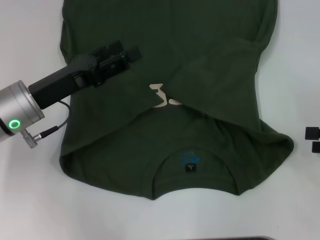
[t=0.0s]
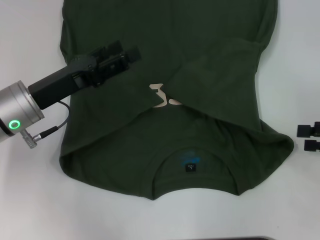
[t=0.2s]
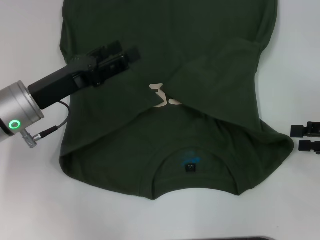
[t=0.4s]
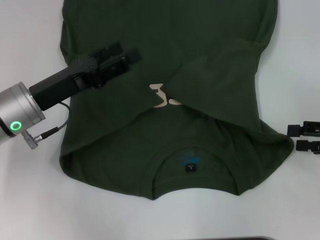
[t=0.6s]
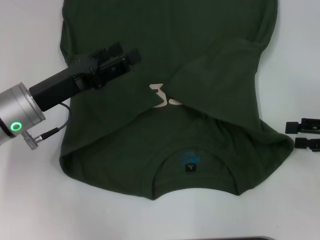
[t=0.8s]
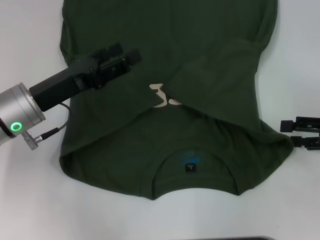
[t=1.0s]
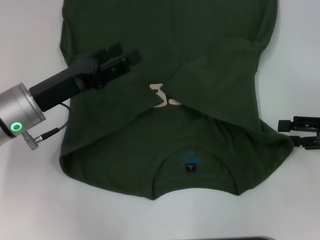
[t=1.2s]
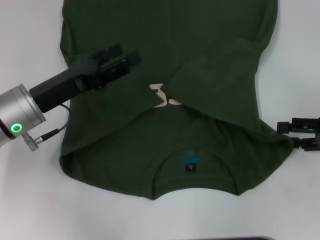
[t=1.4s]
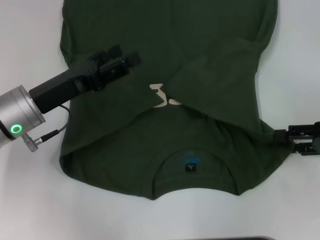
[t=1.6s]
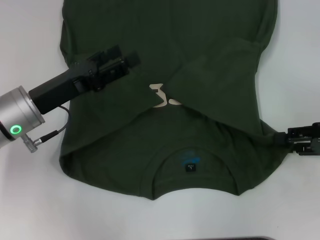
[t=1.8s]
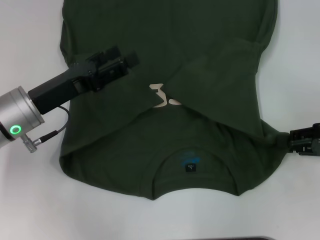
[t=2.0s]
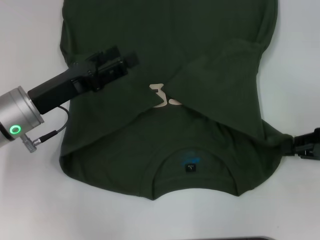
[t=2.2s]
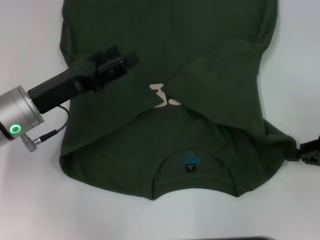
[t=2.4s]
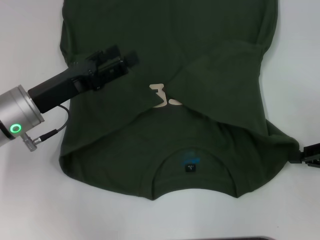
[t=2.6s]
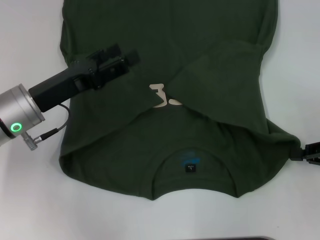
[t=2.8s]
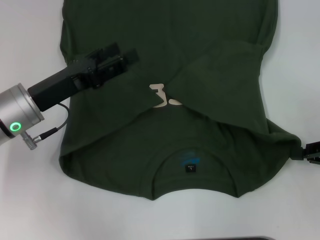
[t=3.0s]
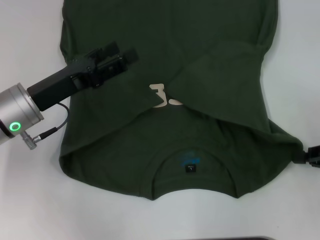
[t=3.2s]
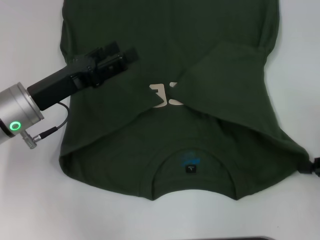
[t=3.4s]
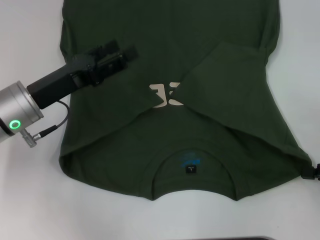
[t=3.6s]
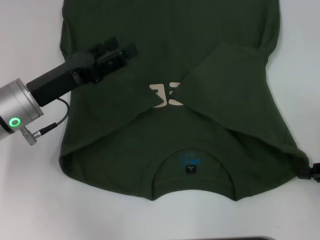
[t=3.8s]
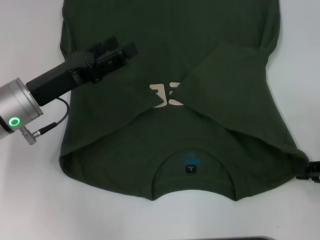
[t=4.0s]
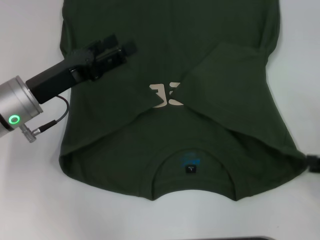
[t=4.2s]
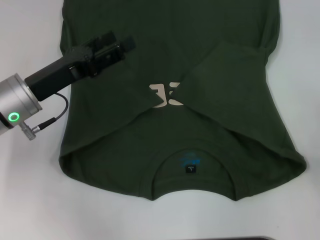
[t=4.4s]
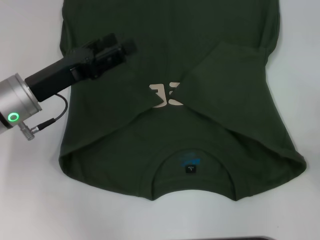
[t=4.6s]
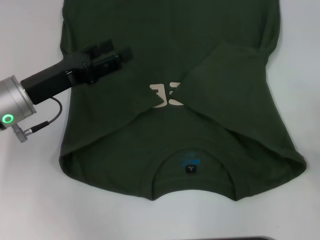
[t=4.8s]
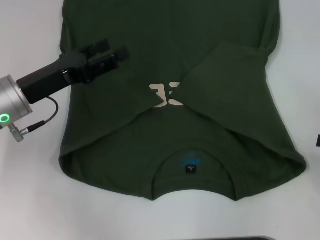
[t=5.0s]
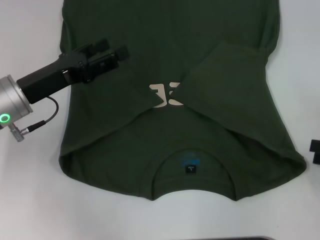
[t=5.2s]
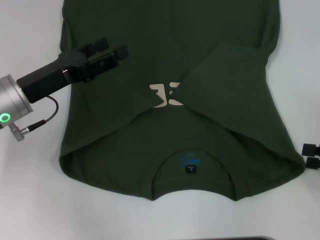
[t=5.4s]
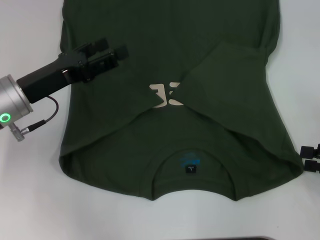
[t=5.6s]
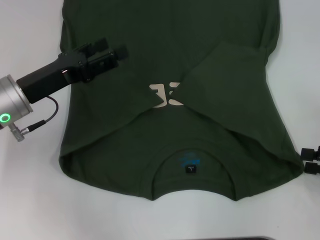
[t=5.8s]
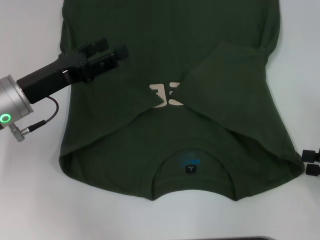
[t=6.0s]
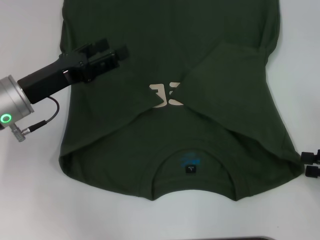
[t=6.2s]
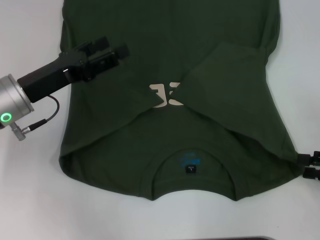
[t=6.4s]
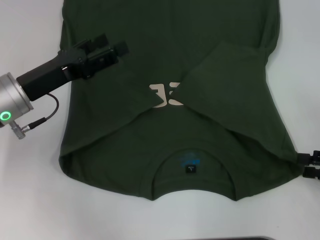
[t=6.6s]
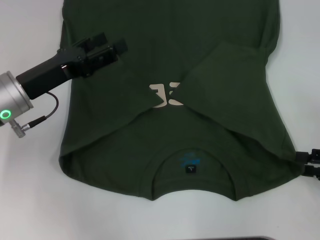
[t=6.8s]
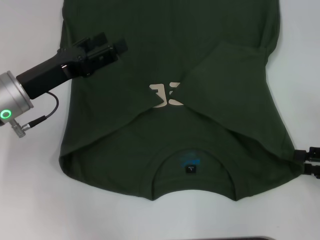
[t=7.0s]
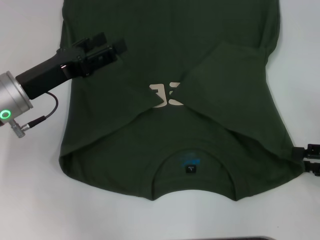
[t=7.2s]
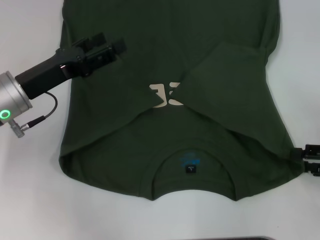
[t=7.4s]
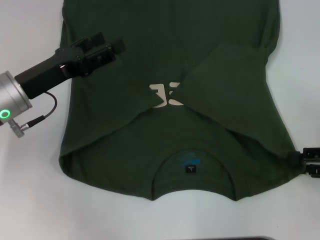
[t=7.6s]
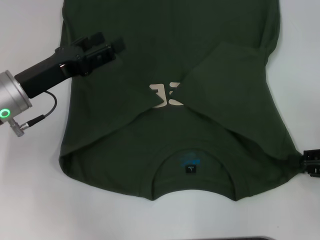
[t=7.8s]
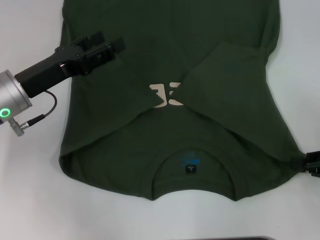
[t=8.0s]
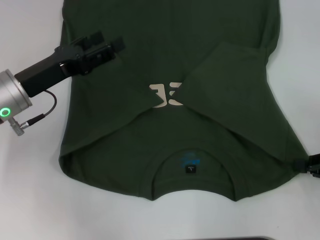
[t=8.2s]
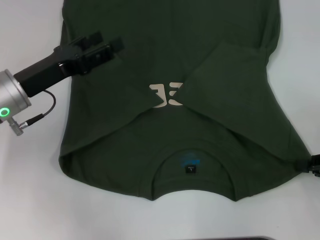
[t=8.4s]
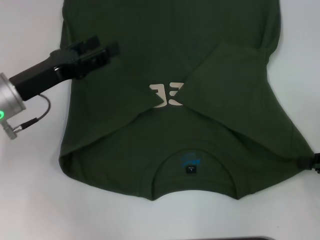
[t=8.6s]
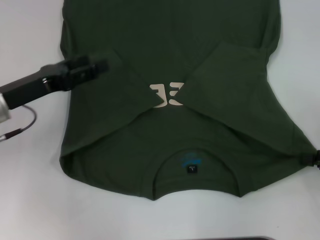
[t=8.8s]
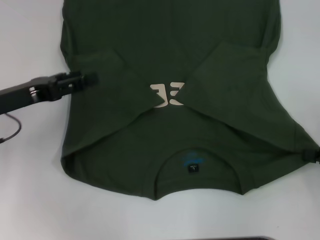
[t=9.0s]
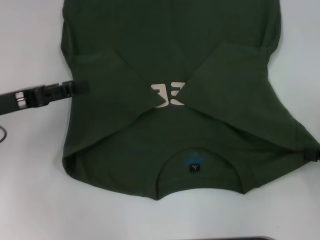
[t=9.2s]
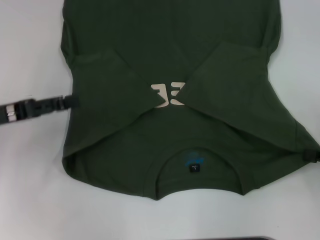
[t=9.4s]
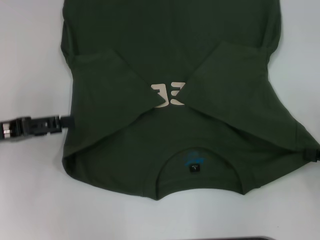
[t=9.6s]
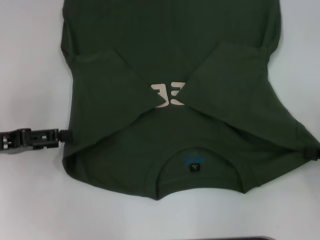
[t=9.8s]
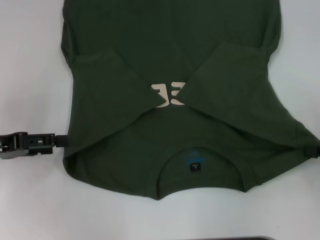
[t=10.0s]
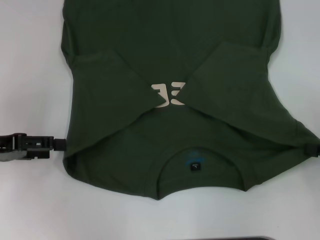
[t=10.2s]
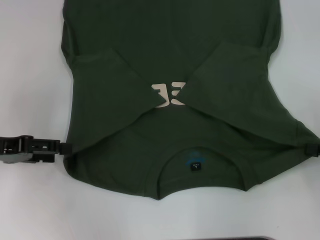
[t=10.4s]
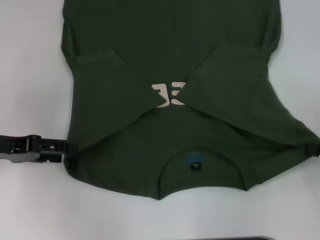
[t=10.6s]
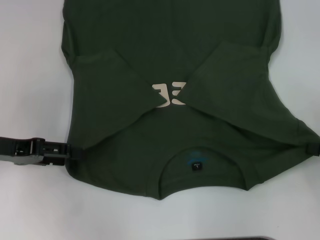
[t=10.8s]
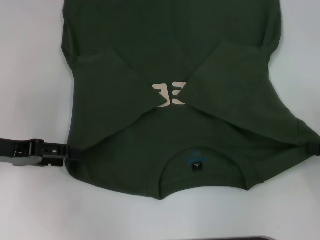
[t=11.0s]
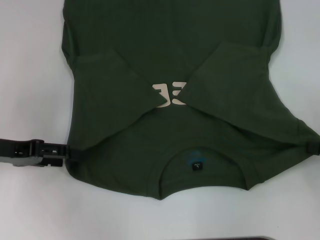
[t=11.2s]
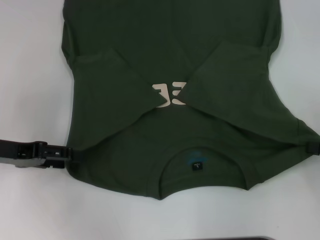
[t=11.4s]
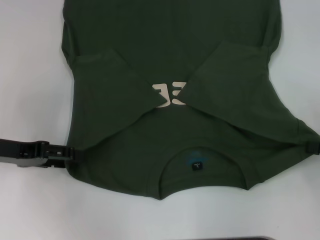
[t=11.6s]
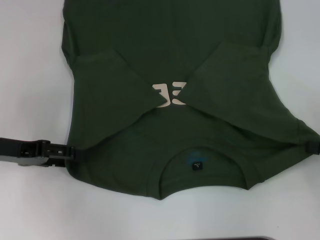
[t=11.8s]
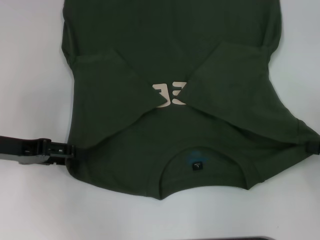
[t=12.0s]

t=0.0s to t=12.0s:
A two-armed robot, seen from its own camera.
Step, t=0.0s to t=9.6s: Grab the bottom right corner with your right hand.
t=0.0s to t=1.6s: The right gripper changes place by roughly 5 cm.
t=1.6s to t=3.0s: The right gripper closes.
t=3.0s to t=4.4s: The right gripper changes place by roughly 5 cm, and opens its fingers.
t=4.4s to t=7.6s: The grippers stay close to where they were, moving slightly.
t=7.6s to t=9.0s: The right gripper closes its fingers, while the left gripper moves roughly 5 cm.
t=10.4s to t=12.0s: The grippers stay close to where they were, moving slightly.

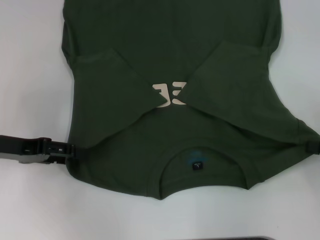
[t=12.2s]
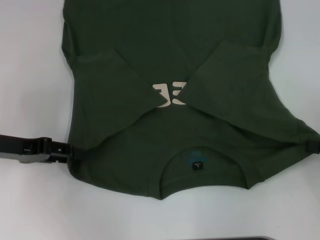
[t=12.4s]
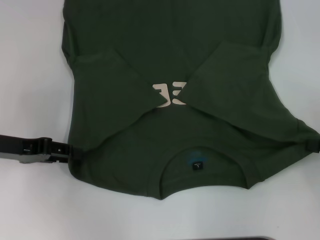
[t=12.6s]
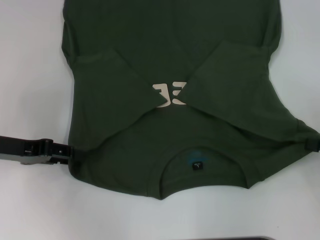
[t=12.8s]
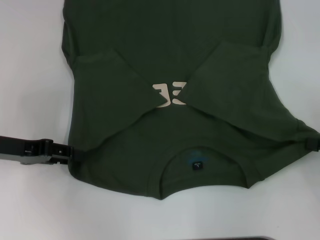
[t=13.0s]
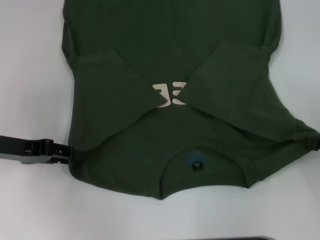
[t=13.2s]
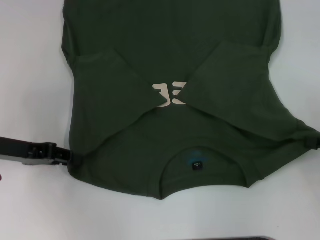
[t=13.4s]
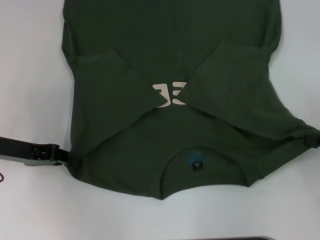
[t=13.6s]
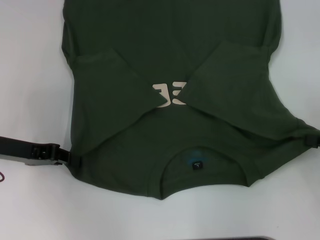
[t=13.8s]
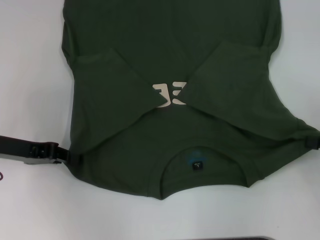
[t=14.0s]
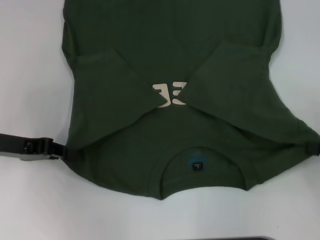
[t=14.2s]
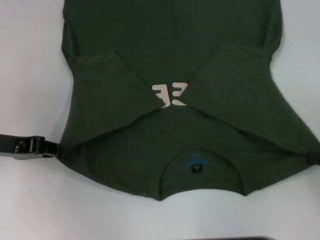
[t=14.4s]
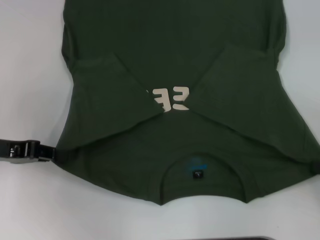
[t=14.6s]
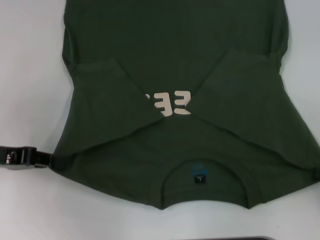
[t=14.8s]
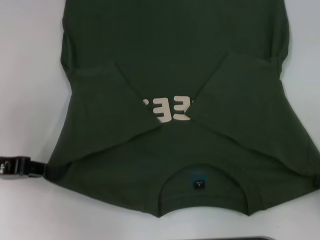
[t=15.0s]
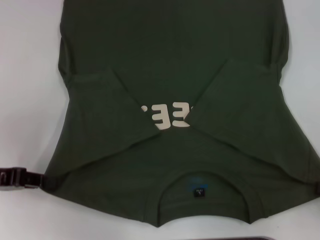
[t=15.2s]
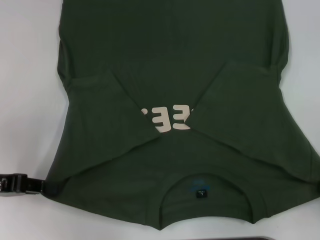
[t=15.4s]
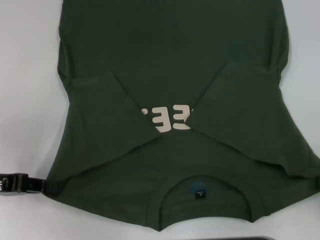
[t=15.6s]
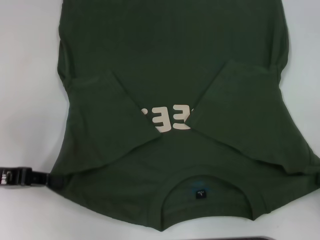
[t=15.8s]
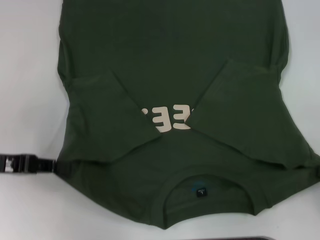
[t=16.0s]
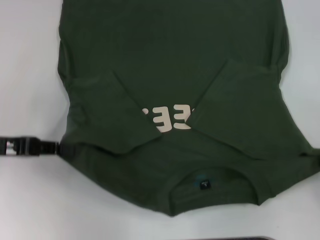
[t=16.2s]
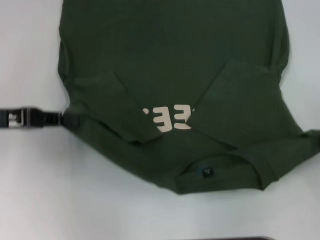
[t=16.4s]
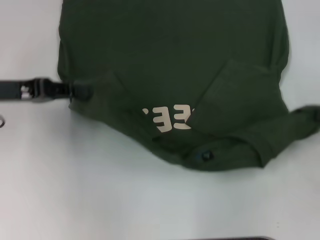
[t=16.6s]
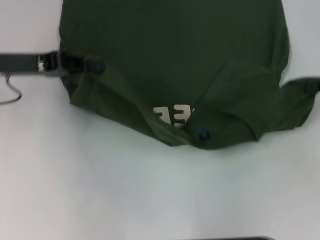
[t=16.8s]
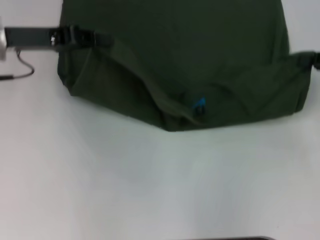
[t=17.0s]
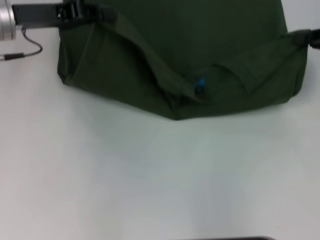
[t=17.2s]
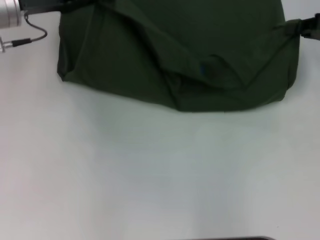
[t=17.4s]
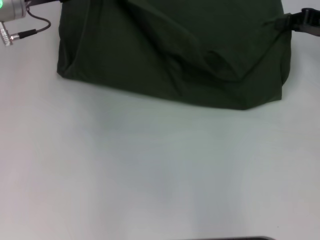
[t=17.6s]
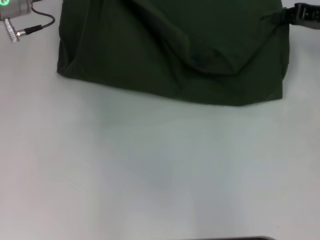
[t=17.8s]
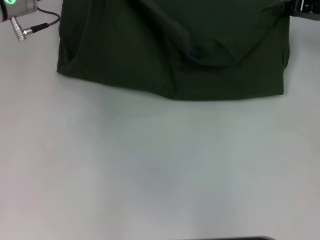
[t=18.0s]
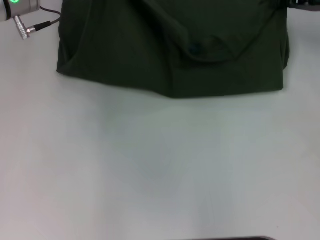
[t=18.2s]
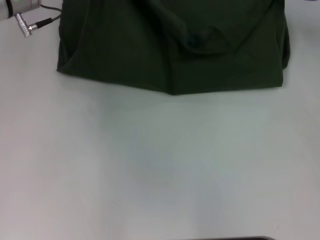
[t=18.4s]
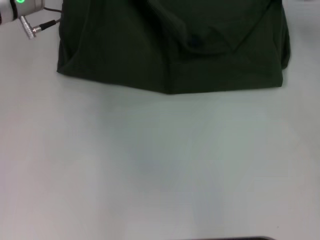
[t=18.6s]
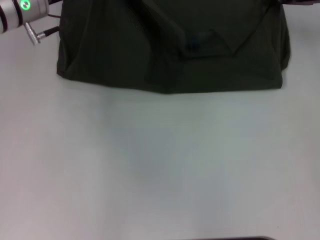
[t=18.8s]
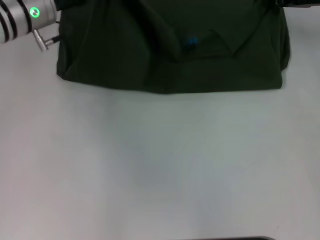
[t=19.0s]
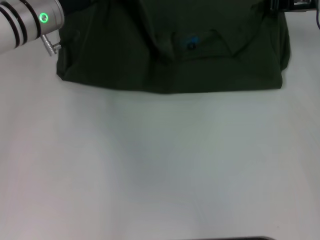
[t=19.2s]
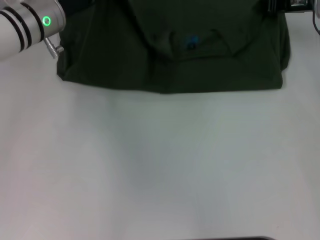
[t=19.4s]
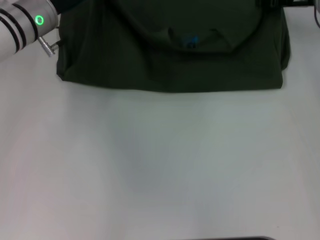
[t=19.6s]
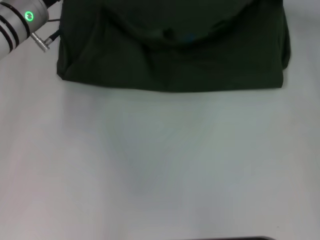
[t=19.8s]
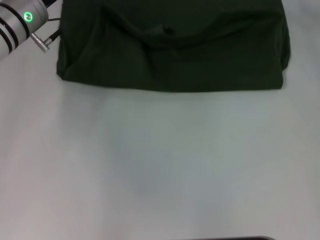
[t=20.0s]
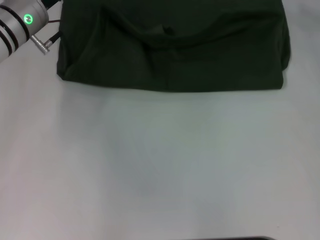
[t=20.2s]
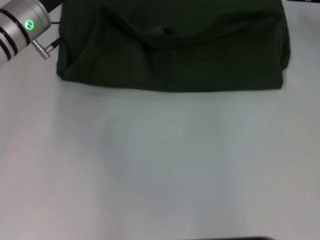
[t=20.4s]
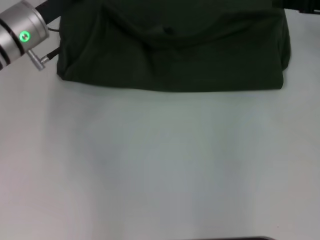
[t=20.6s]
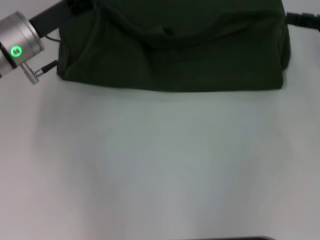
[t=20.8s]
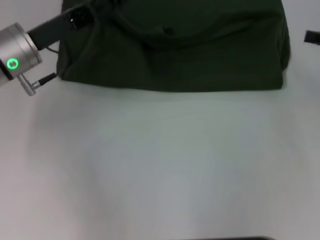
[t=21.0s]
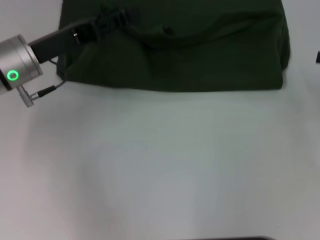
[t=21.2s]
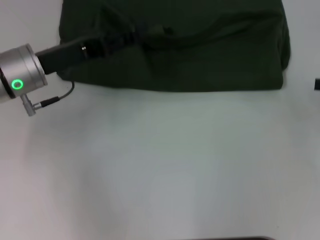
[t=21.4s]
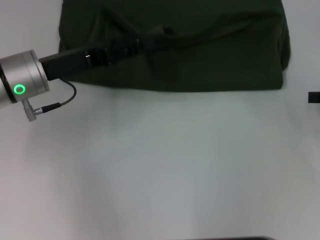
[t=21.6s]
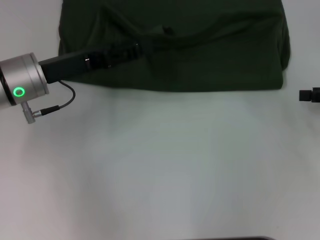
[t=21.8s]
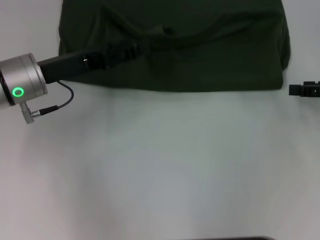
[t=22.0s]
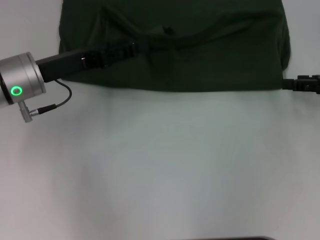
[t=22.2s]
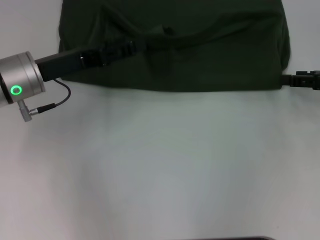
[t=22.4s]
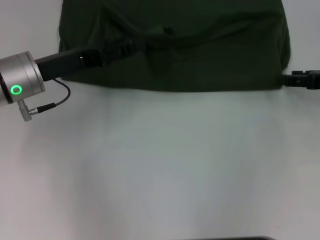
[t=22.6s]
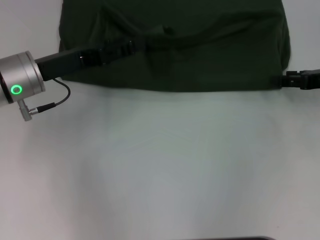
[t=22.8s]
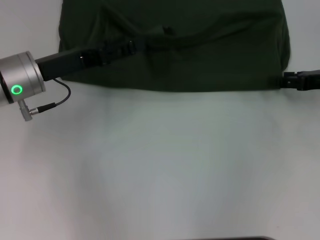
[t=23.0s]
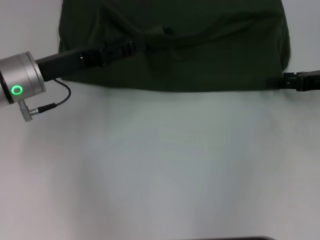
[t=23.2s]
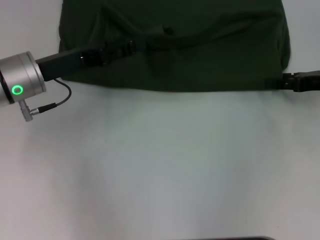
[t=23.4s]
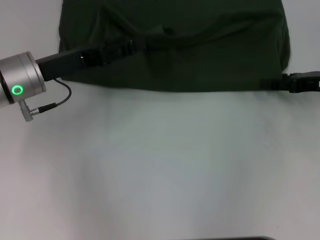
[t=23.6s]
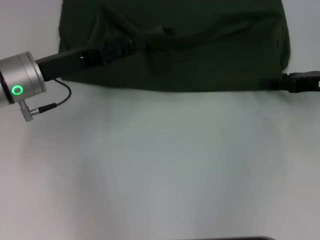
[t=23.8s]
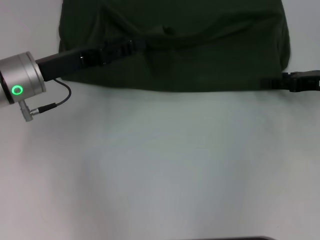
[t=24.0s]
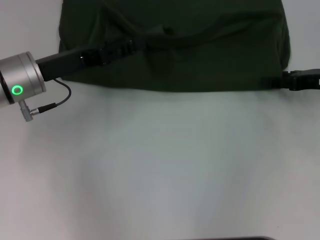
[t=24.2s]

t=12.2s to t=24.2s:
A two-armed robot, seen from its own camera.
Step, t=12.2s to t=14.6s: Grab the bottom left corner with your left hand.
Step, t=14.8s to t=19.8s: Fold the clothes with your left hand.
Step, t=14.8s to t=19.8s: Fold the clothes with your right hand.
t=12.2s to t=13.8s: The left gripper closes.
t=13.8s to t=15.2s: The right gripper goes roughly 5 cm backward. The left gripper ends up roughly 5 cm from where it was.
t=15.2s to t=16.6s: Both grippers move forward, approximately 10 cm.
t=16.6s to t=18.2s: The right gripper is displaced forward and to the left by about 20 cm. Meanwhile the left gripper shifts approximately 15 cm forward and to the right.
t=19.8s to t=21.2s: The right gripper moves backward and to the right, about 20 cm, and opens its fingers, while the left gripper goes some 10 cm backward, and opens its fingers.
t=21.2s to t=22.6s: The right gripper changes place by some 5 cm.
